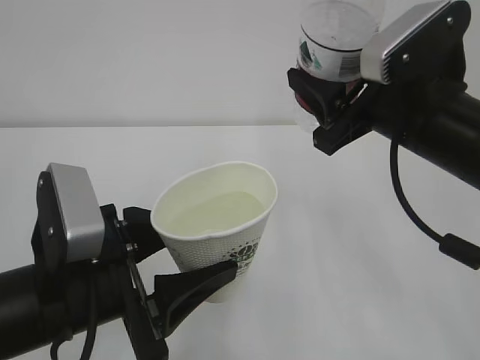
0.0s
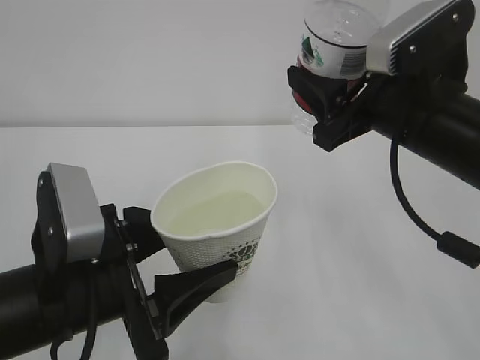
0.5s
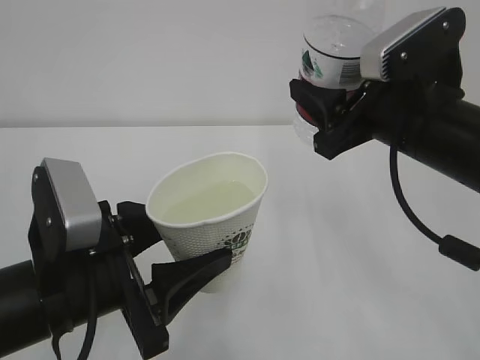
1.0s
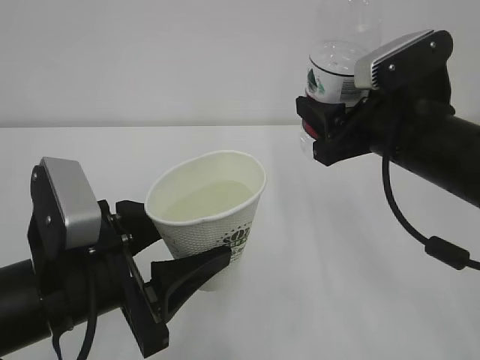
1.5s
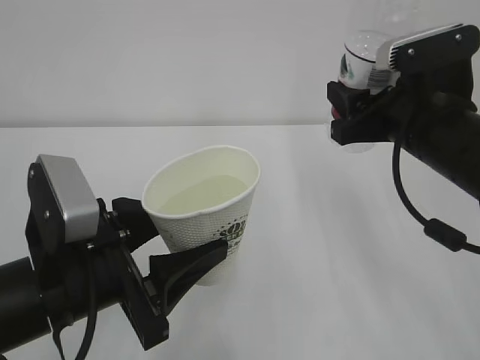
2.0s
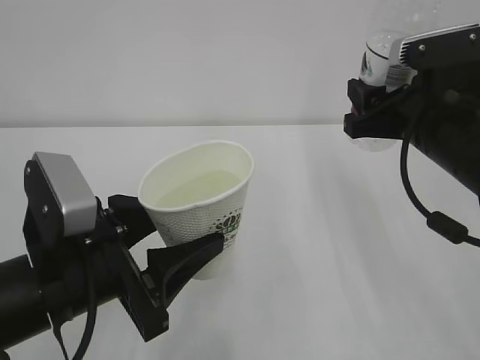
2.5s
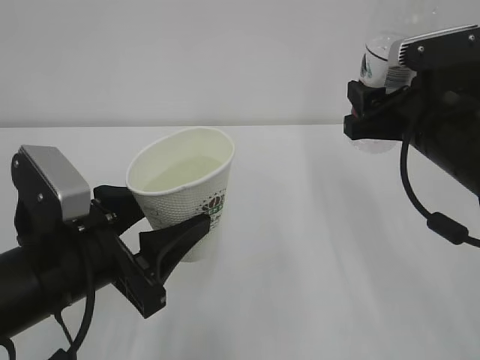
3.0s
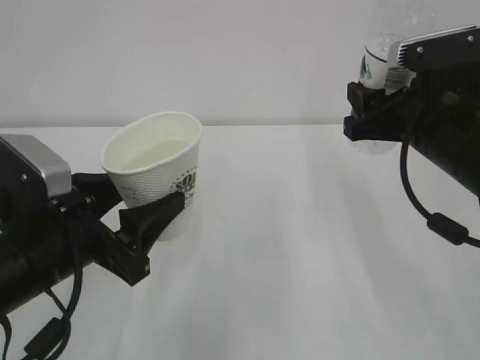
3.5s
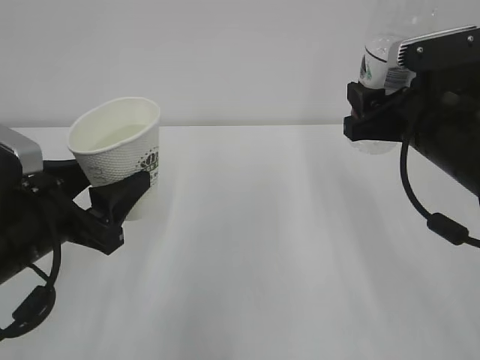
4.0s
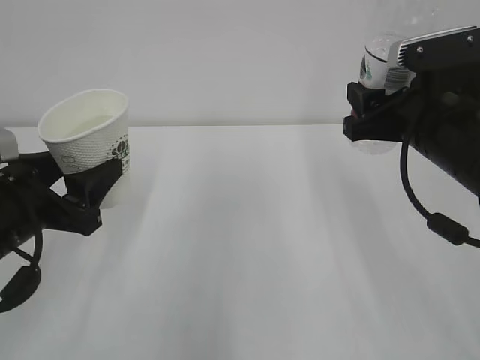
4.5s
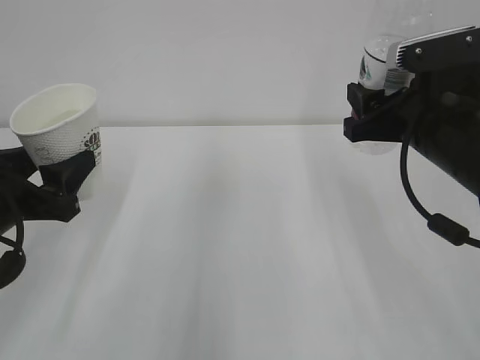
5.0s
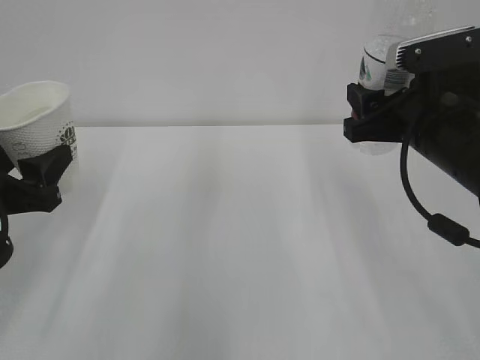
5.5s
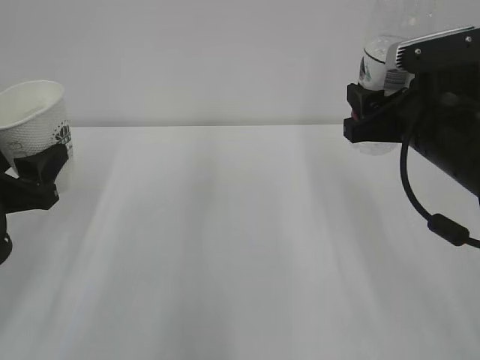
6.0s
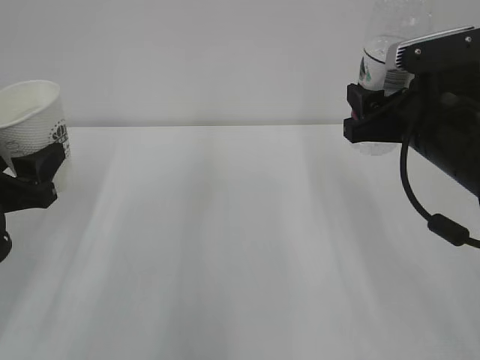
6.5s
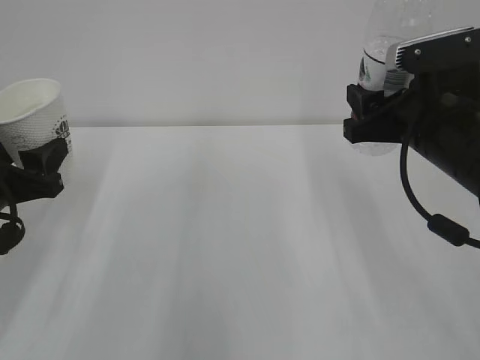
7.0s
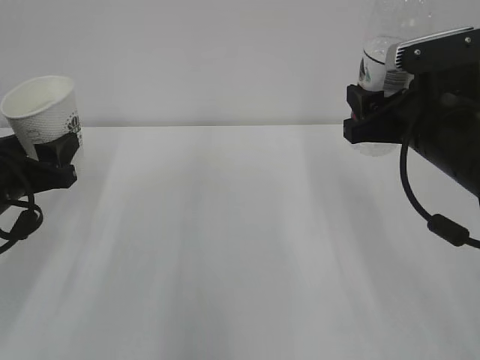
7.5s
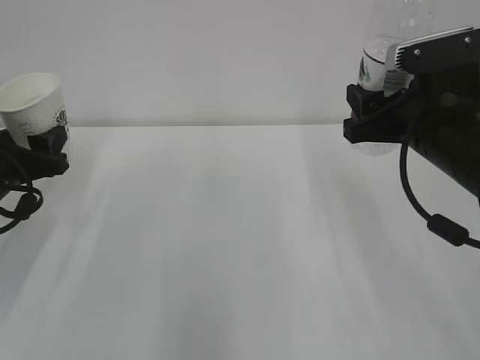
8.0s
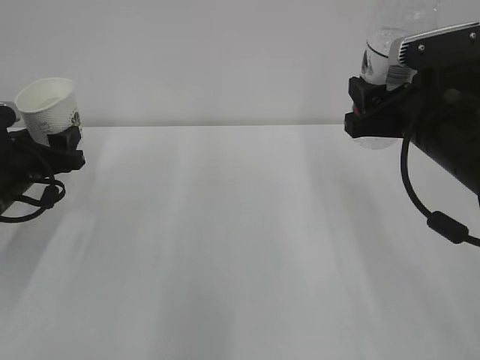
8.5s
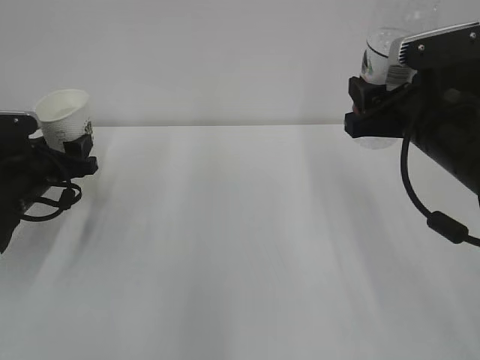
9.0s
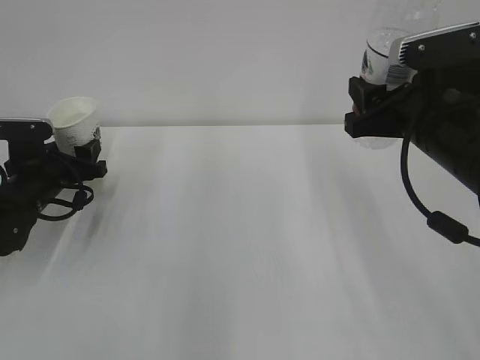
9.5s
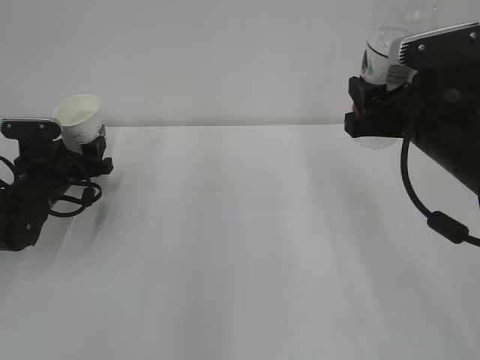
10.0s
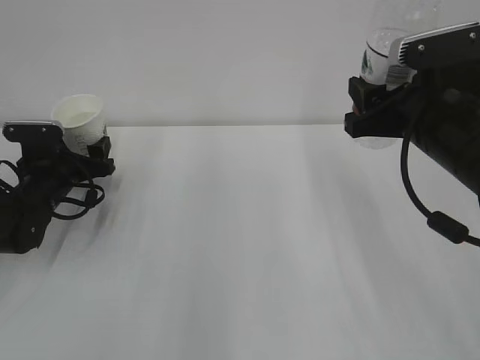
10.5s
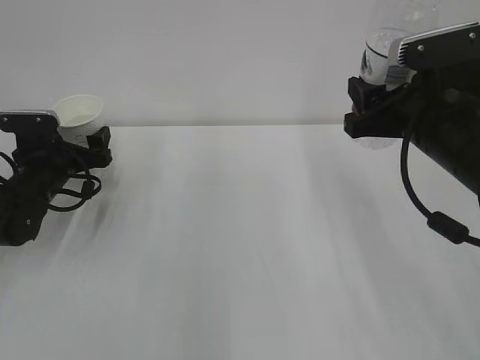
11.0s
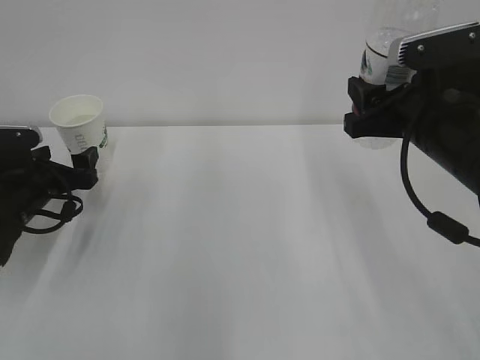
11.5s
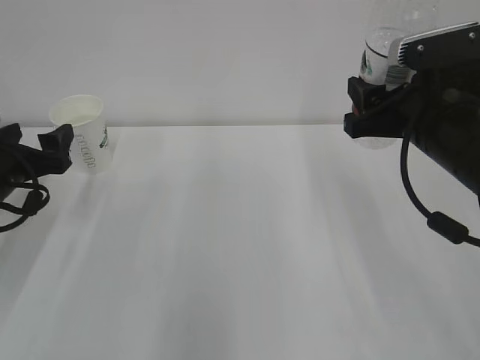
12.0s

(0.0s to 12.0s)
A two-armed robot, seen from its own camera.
2.0s - 4.0s: The left gripper shifts some 5 cm to the left.
4.0s - 6.0s: The left gripper travels to the left by about 5 cm.
6.0s - 8.0s: The left gripper moves forward, about 5 cm.
8.0s - 10.0s: The left gripper travels forward and downward by approximately 15 cm.
10.0s - 12.0s: The left gripper travels backward and upward by approximately 10 cm, and opens up.

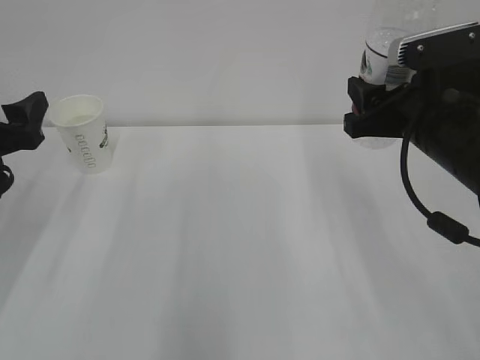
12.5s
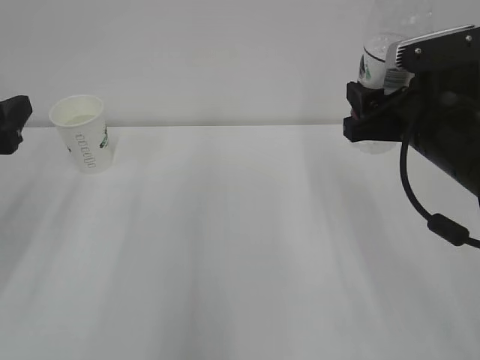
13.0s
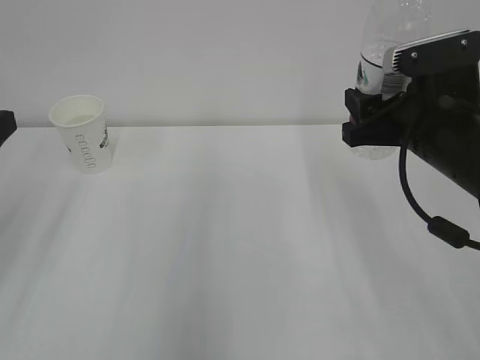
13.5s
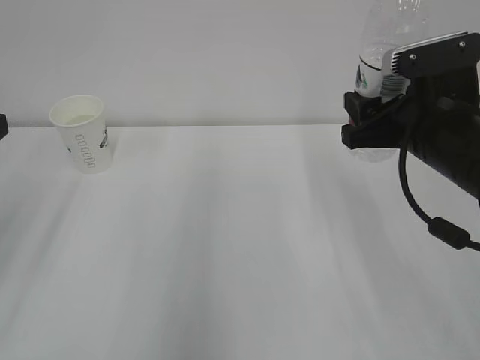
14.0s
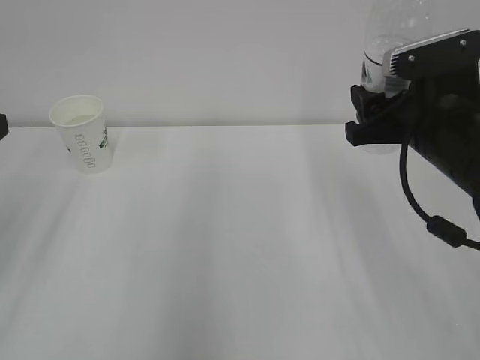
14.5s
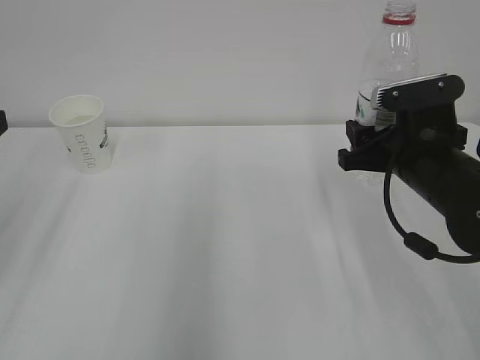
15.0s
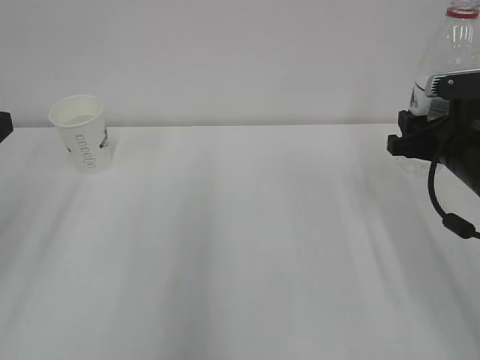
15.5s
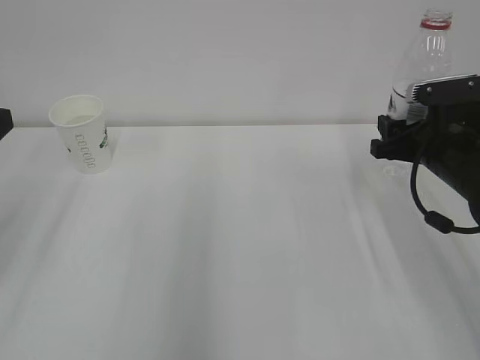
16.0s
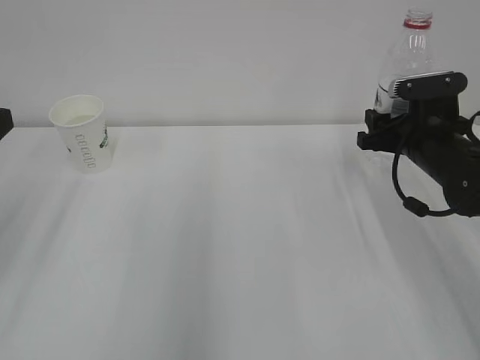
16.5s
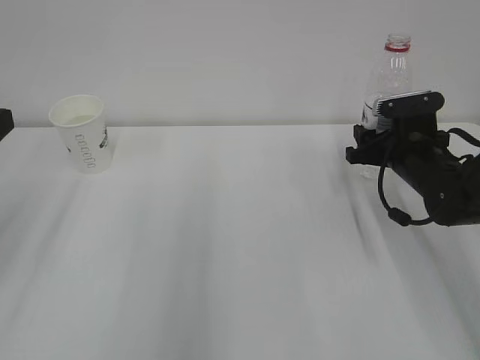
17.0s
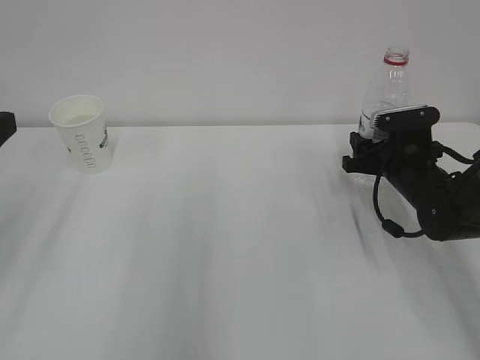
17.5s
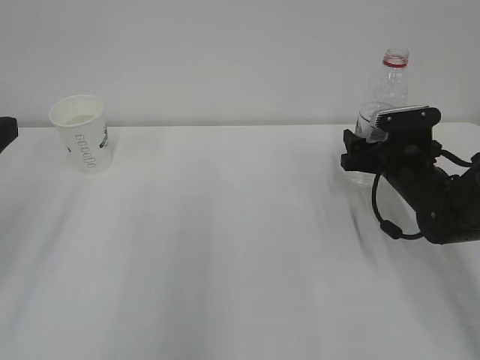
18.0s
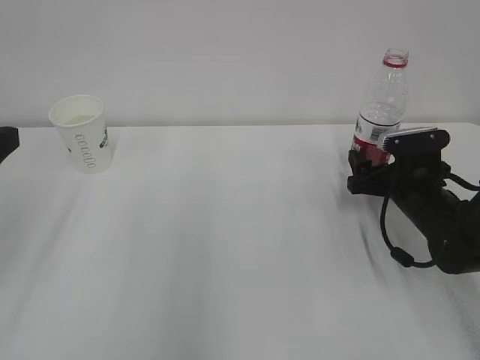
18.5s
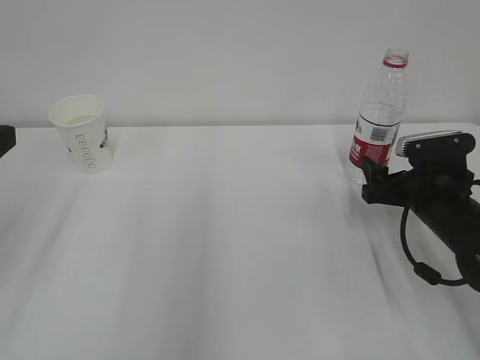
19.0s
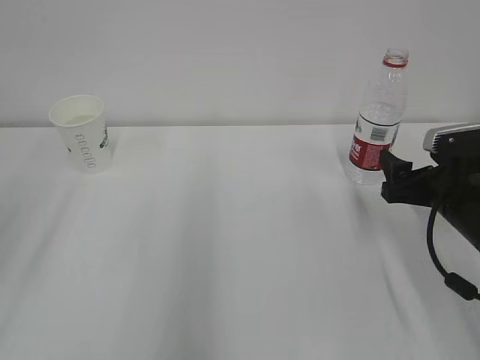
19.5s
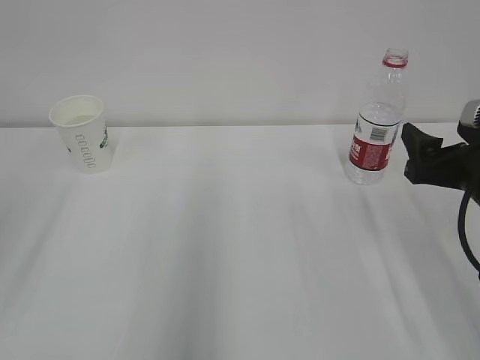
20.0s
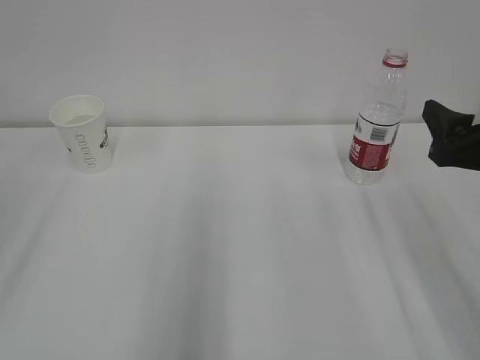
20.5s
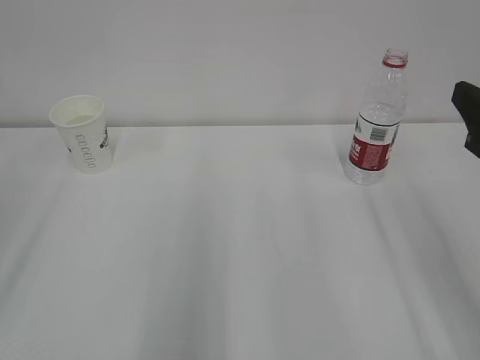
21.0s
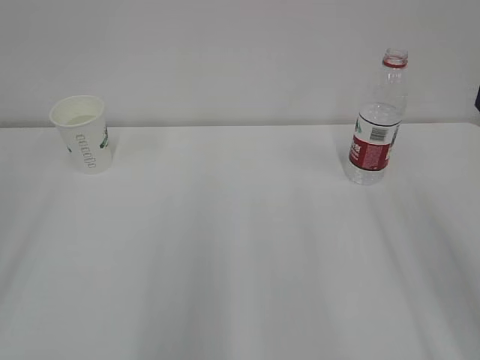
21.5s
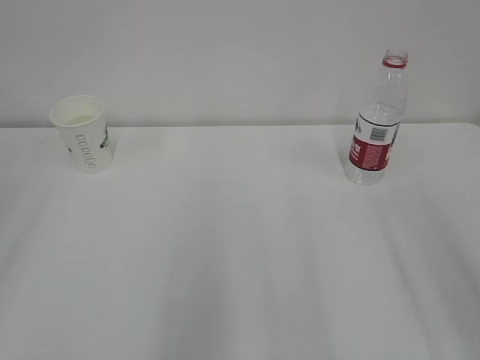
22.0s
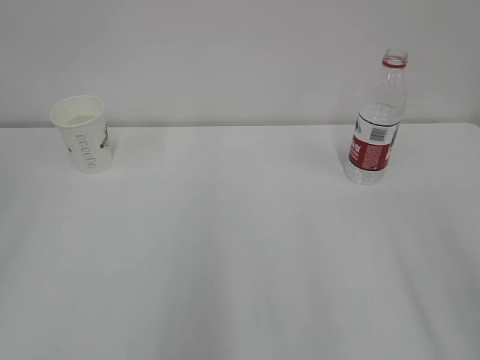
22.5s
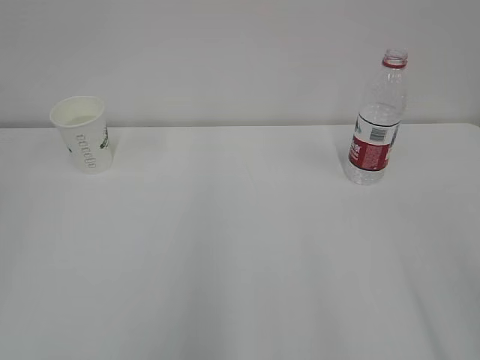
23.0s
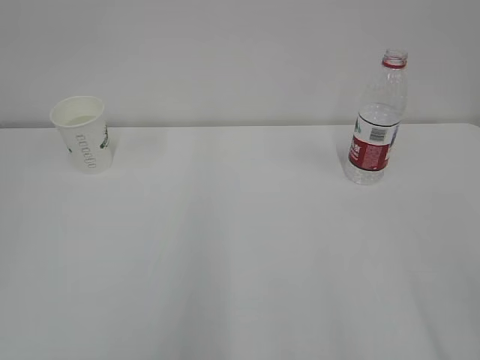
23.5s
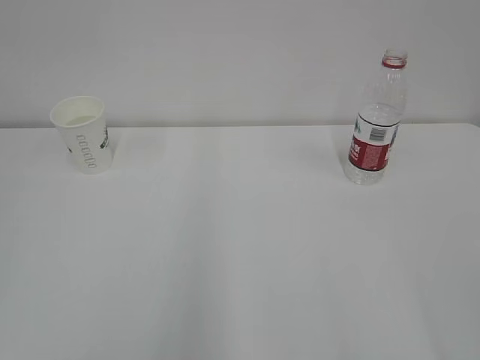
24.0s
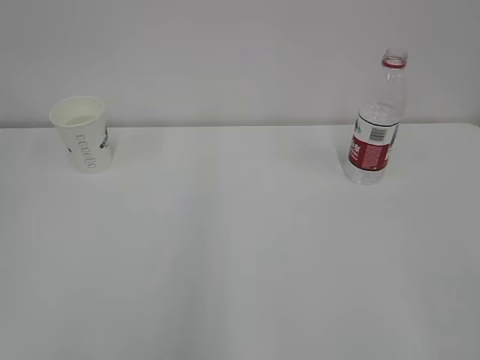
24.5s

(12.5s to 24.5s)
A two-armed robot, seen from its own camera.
12.5s - 14.5s: The left gripper moves backward and upward, approximately 10 cm.
14.5s - 16.5s: The right gripper shifts about 15 cm forward, downward and to the right.
16.5s - 18.5s: The right gripper is displaced downward by approximately 5 cm, and opens.
18.5s - 20.5s: The right gripper moves upward and backward, about 20 cm.
20.5s - 22.5s: The right gripper goes approximately 20 cm backward and upward.

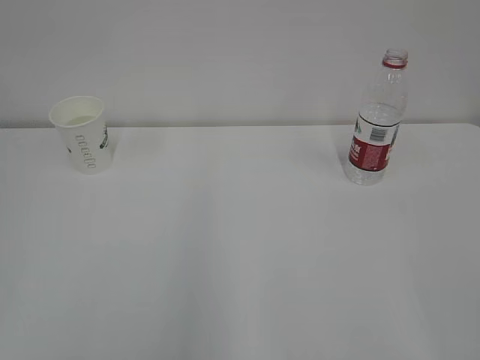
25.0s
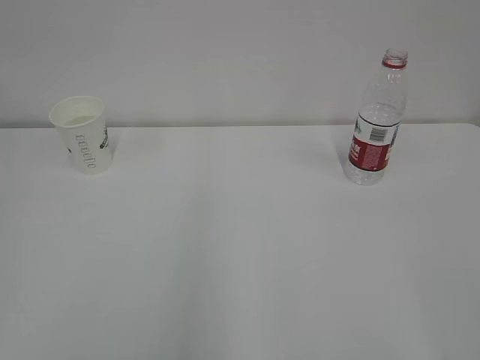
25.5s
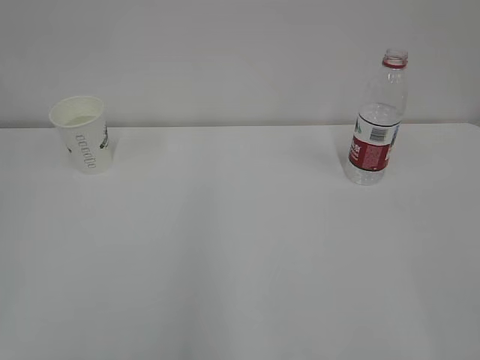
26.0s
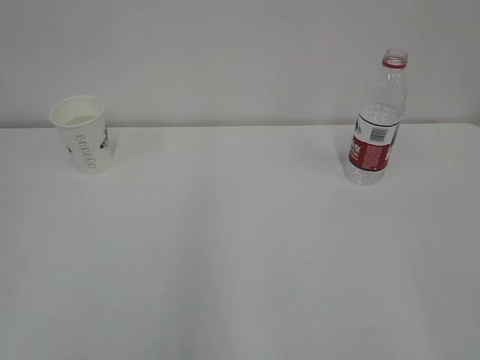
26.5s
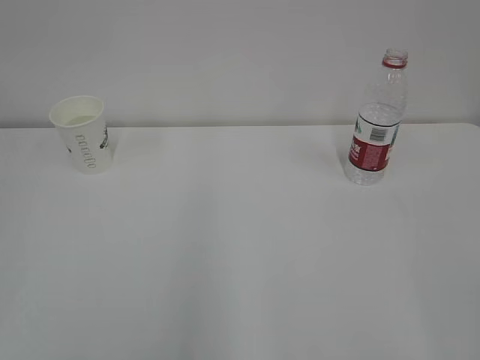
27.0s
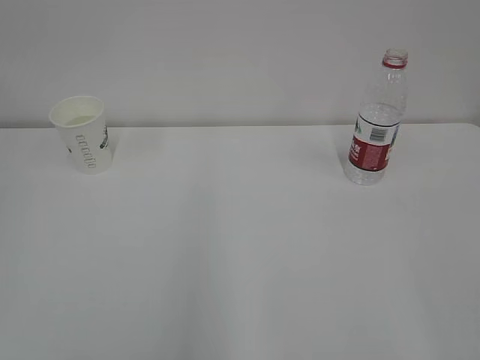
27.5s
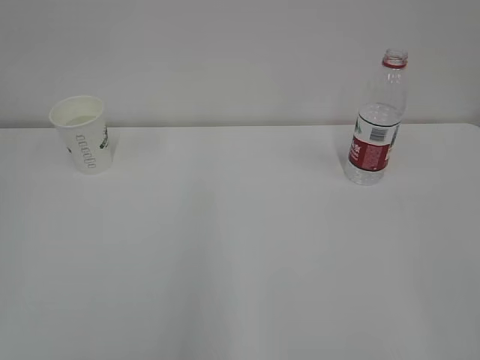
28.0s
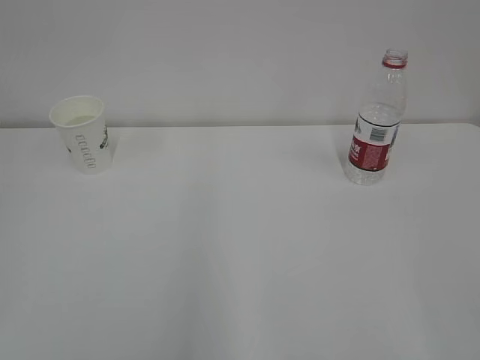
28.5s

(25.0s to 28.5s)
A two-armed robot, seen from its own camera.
25.0s - 28.5s: The two grippers keep their place.
